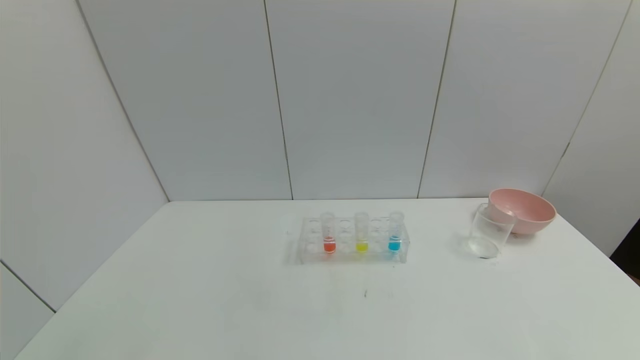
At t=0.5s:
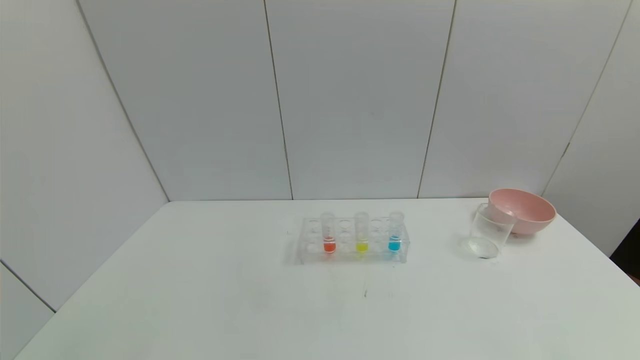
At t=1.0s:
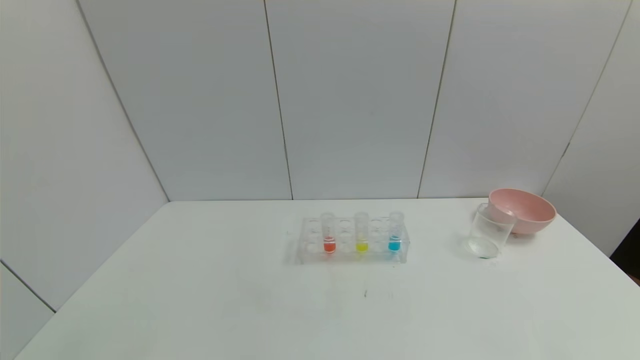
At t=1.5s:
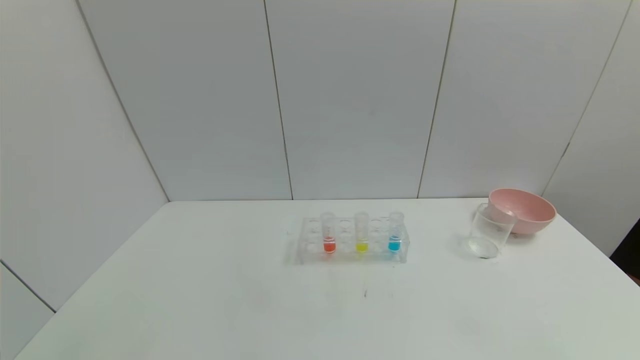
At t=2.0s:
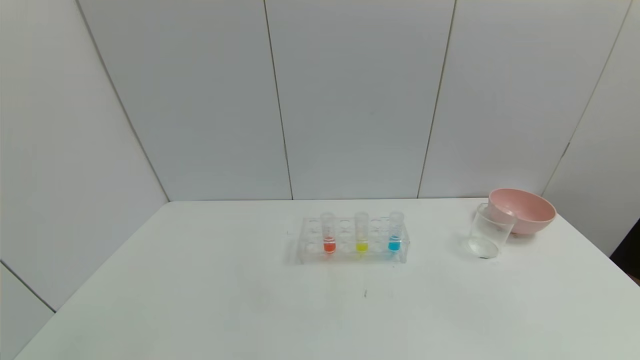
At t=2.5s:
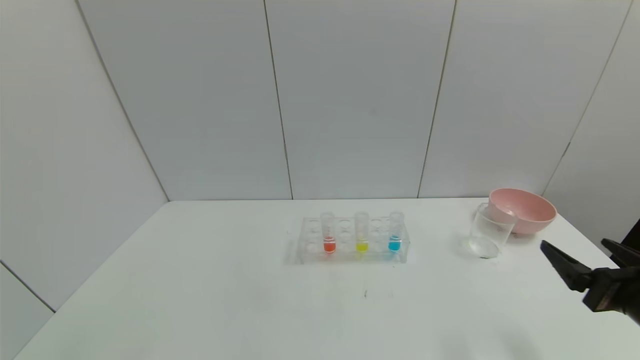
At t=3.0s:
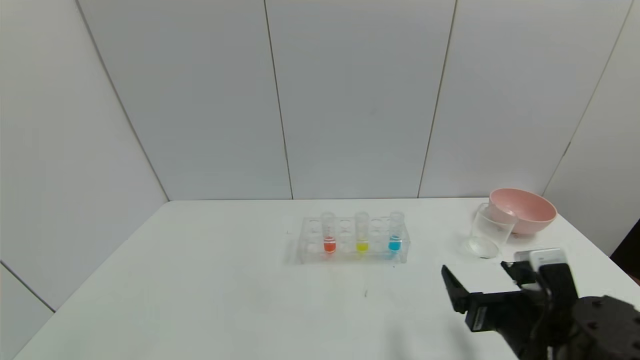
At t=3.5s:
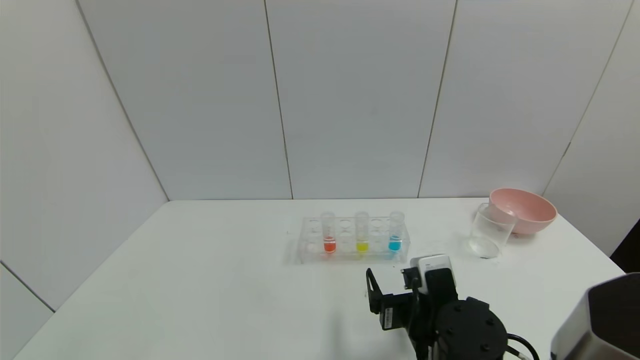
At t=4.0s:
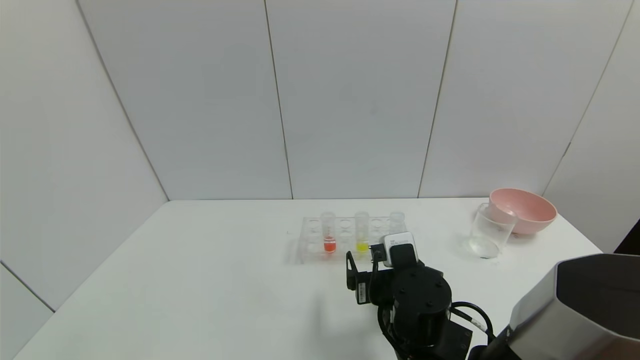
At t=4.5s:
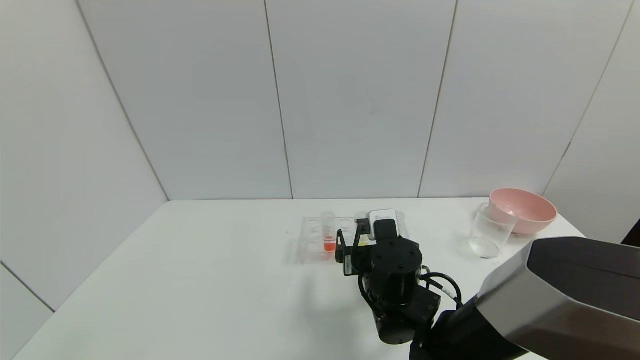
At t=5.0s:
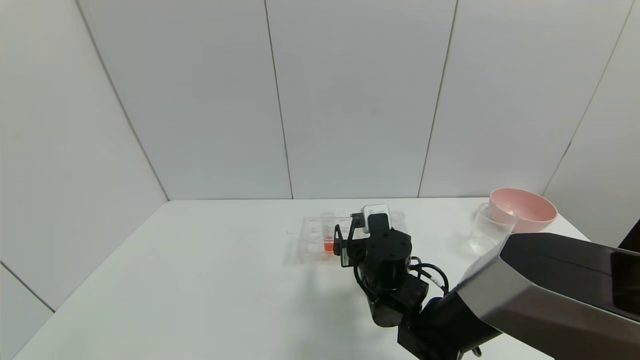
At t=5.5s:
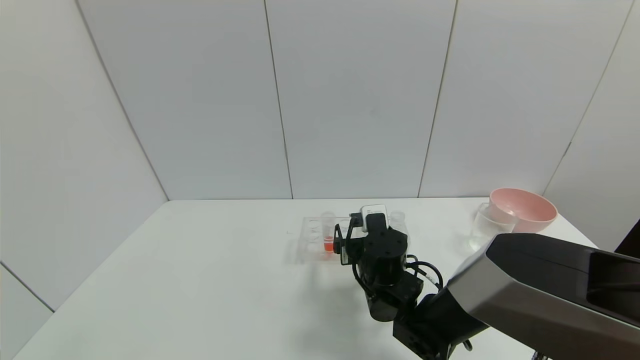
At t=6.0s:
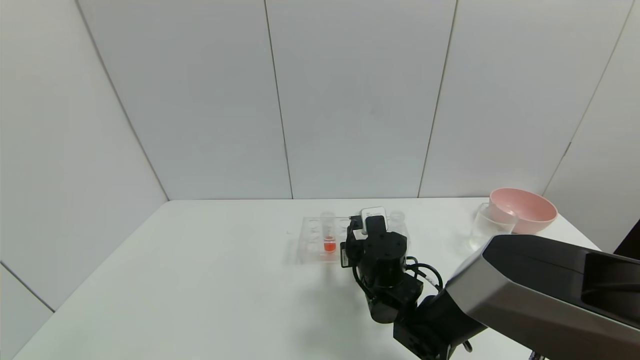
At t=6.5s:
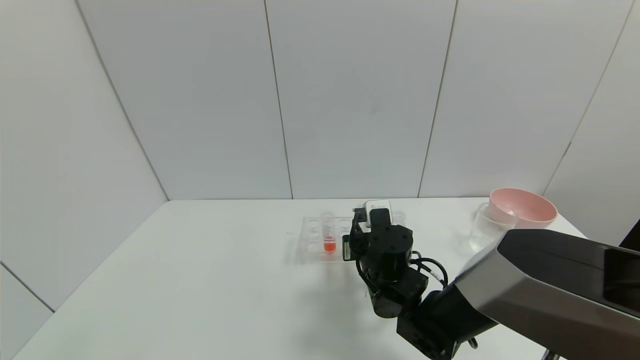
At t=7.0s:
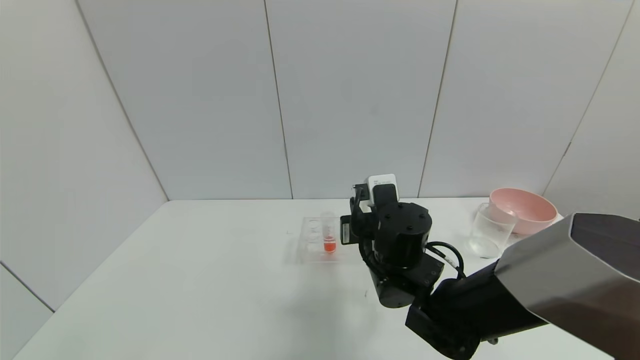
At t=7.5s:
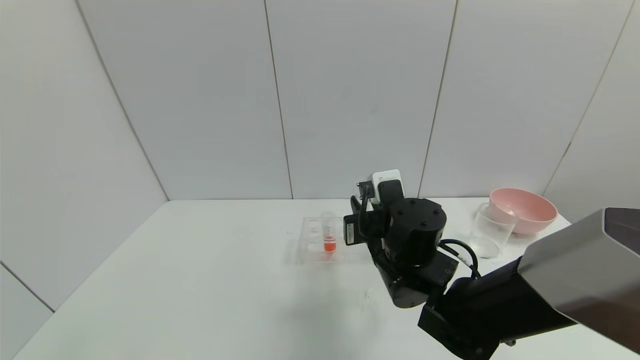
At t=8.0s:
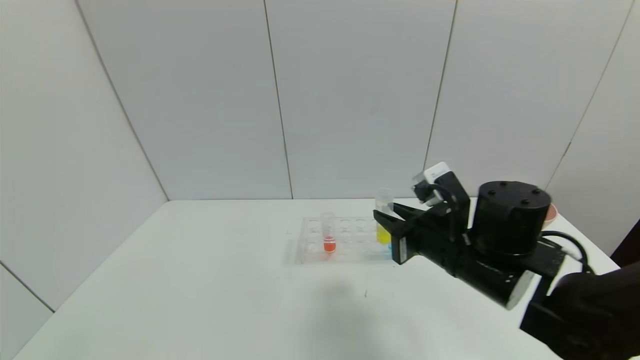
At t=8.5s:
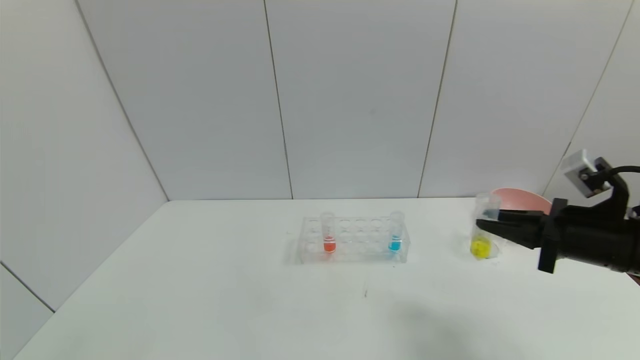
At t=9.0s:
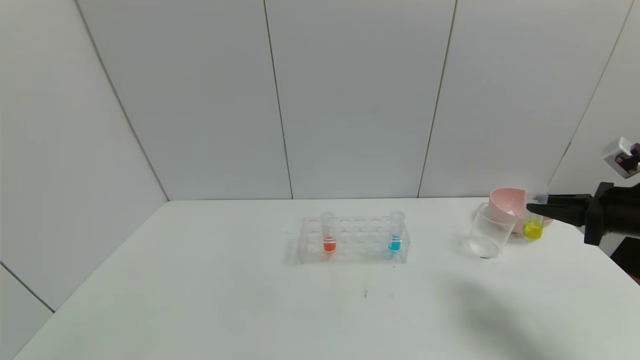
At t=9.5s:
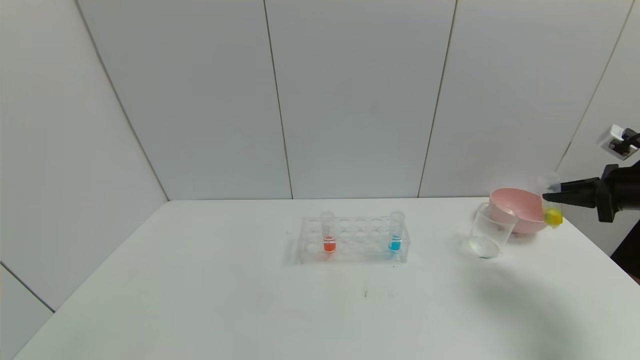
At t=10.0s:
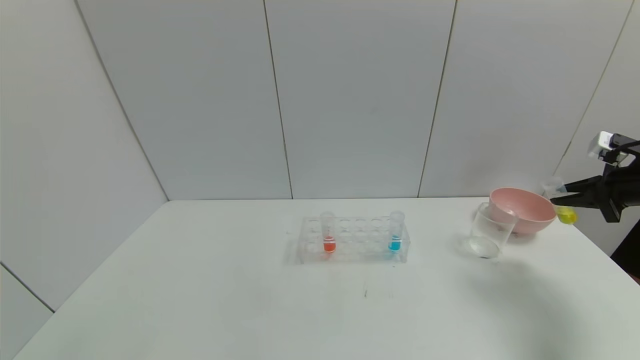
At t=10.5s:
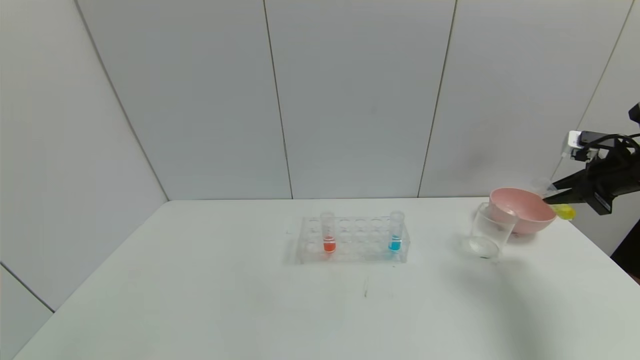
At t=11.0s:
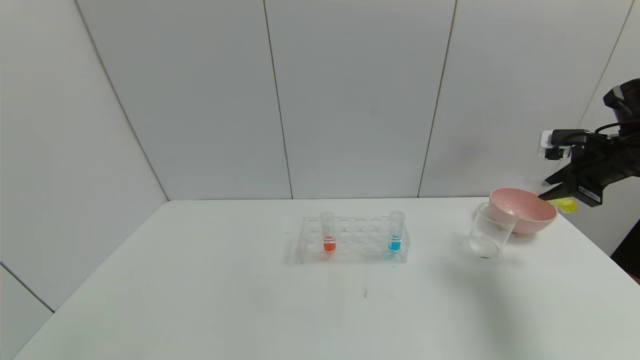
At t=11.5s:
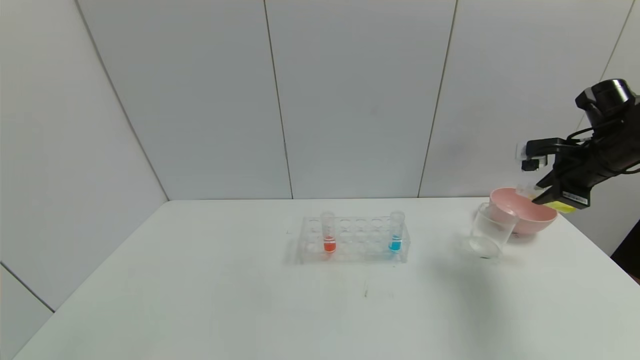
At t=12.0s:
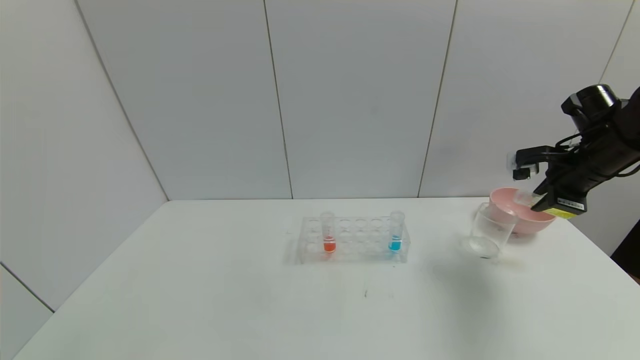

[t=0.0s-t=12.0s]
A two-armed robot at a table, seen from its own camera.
Task of the whole recording: pick up the test tube with yellow pigment and the test tube with blue pigment by grippers and pour them into the beaker.
Step, t=0.0s to t=6.0s: Grasp the red reagent with the right gripper.
t=2.0s to t=4.0s: The right gripper moves to the left and forward, about 35 cm.
t=4.0s to t=6.0s: The right gripper travels forward by some 10 cm, and closes.
t=6.0s to t=8.0s: The right gripper shifts about 15 cm upward, to the right and backward.
t=8.0s to t=10.0s: The right gripper travels to the right by approximately 30 cm.
t=10.0s to t=12.0s: The right gripper goes some 10 cm to the left.

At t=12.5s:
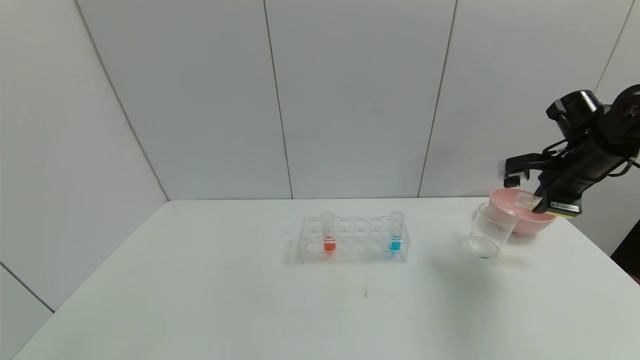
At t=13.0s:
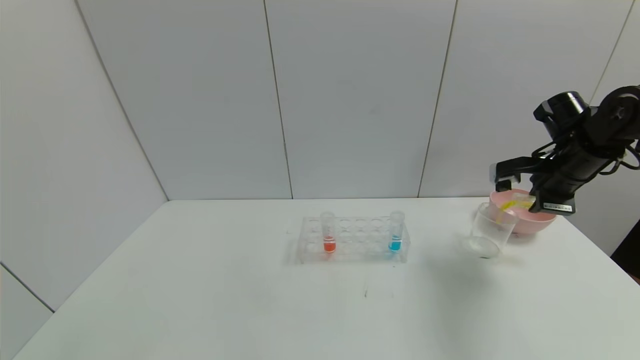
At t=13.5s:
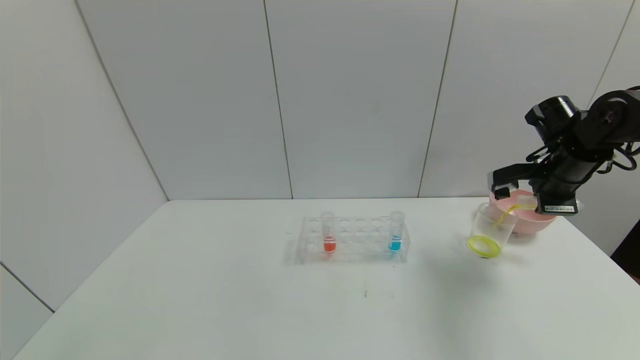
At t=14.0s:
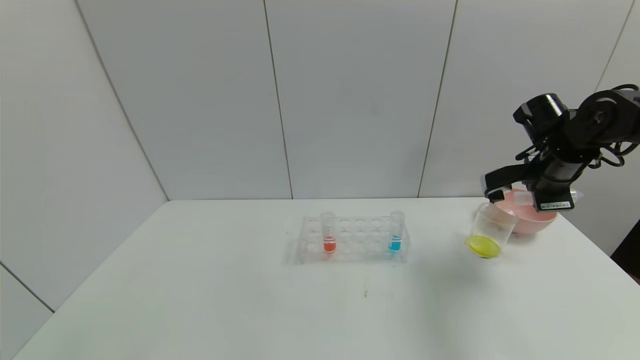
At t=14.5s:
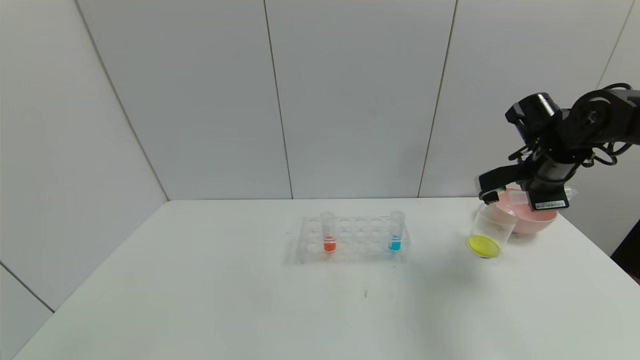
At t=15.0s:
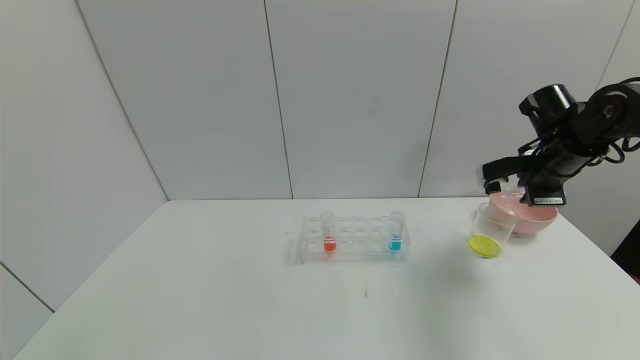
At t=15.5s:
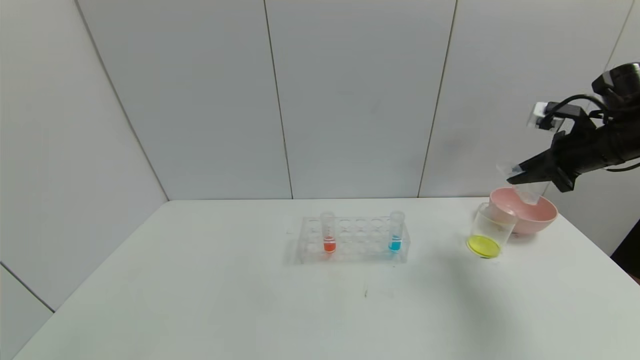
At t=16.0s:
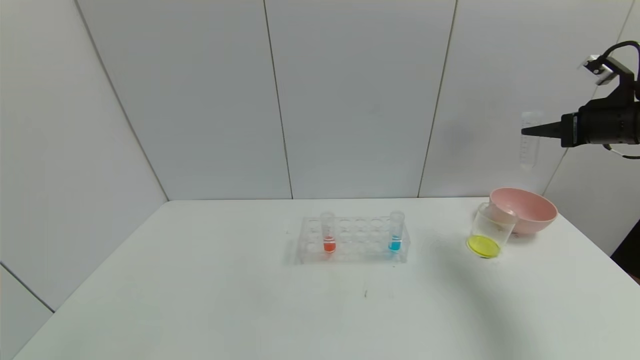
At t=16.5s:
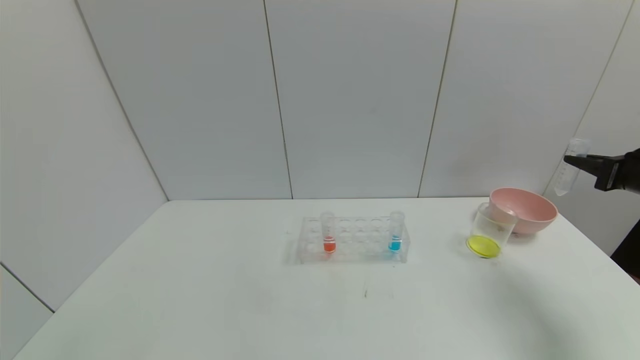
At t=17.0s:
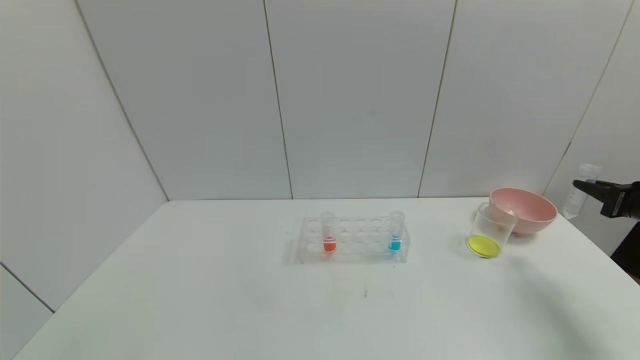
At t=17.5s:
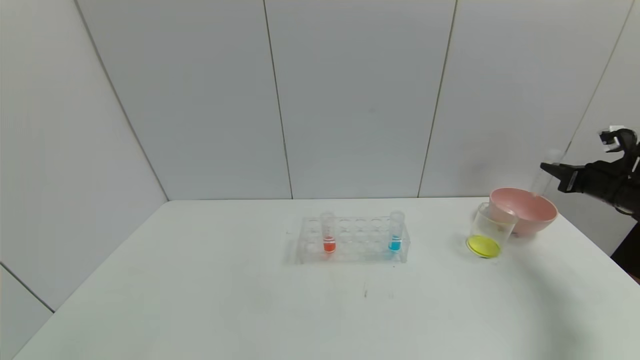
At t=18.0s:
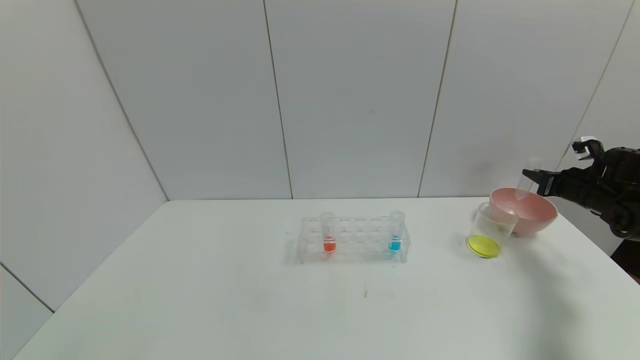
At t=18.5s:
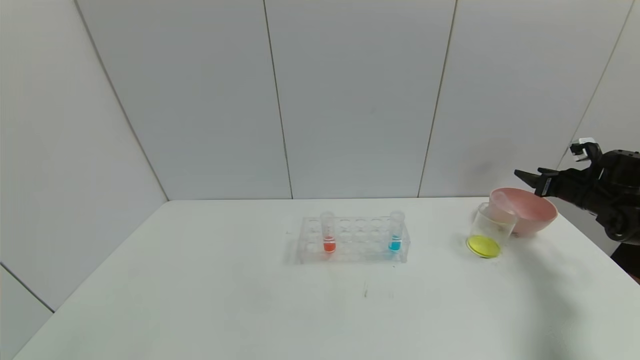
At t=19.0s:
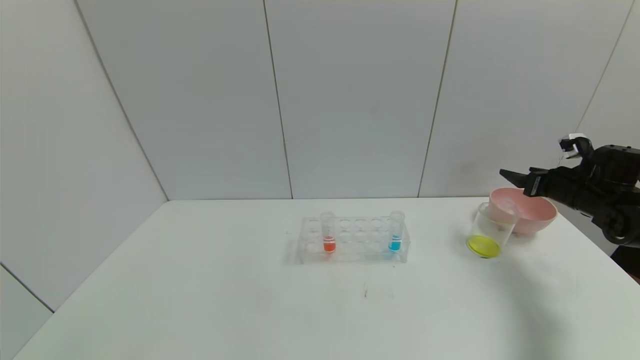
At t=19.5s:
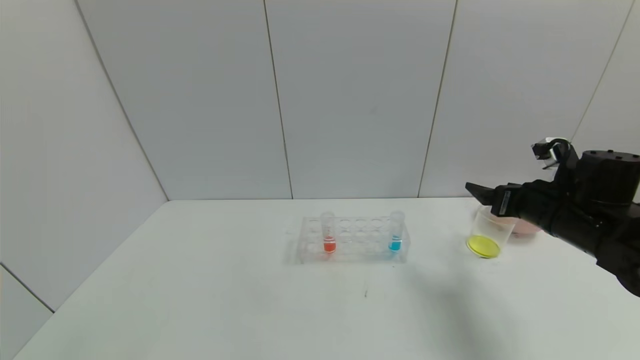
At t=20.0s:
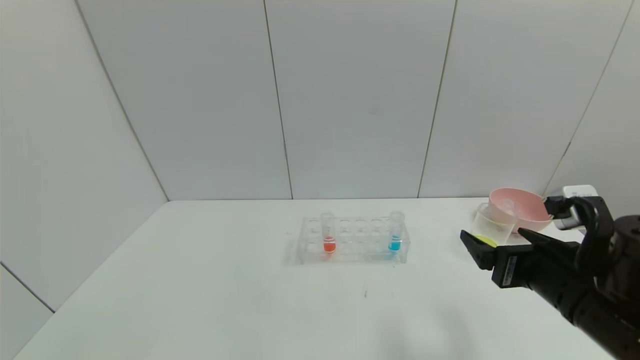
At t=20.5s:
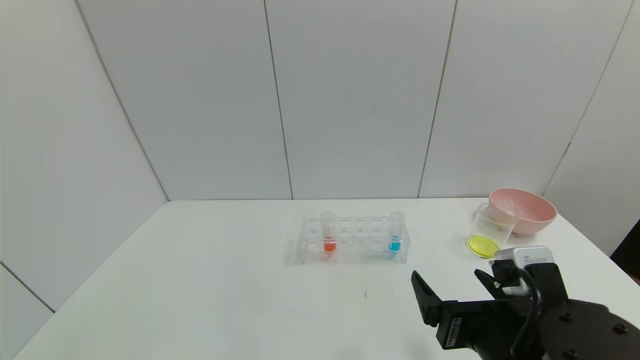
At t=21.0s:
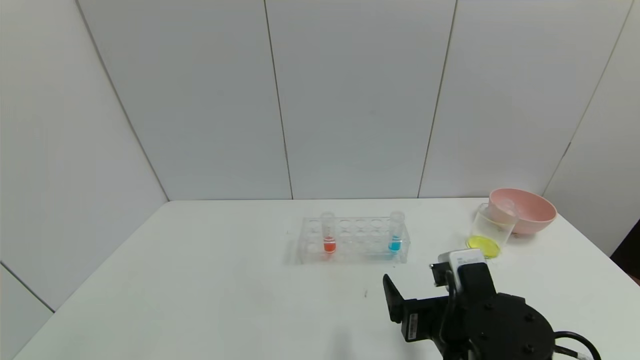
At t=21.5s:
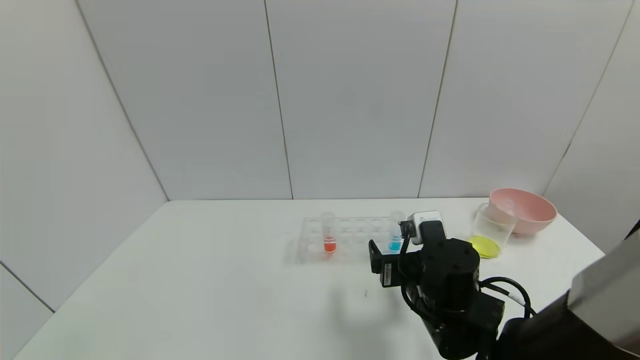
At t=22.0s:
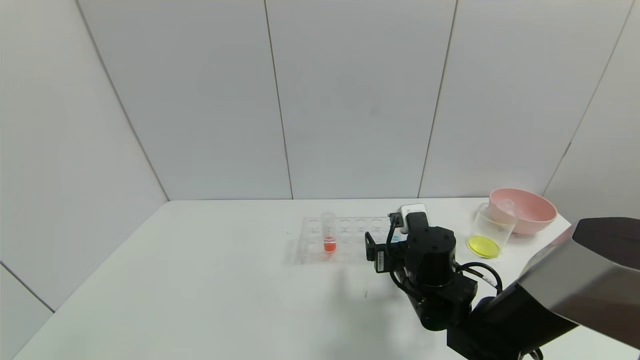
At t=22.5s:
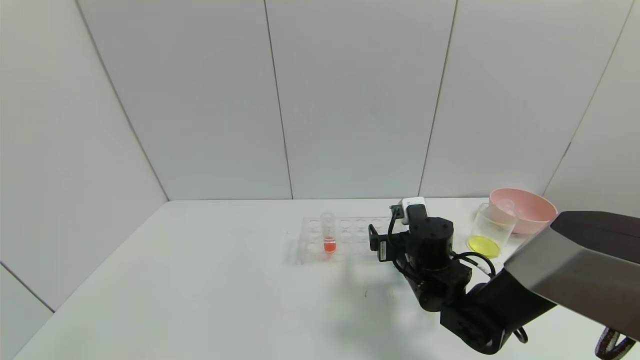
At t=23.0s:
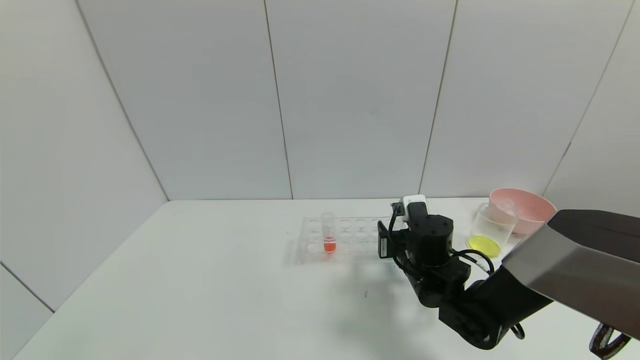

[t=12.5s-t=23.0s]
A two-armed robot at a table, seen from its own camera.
Task of the whole recording: pick up the test tube with yellow pigment and the test tube with blue pigment by grippers and pour them into the beaker.
Step, t=12.5s to t=14.5s: Pour the red reagent into the graduated cylinder with the right gripper.
Step, t=15.0s to t=20.0s: Place the test tube into the bowl with the right gripper.
t=14.5s to t=16.5s: The right gripper goes about 15 cm to the right and backward.
t=16.5s to t=19.0s: The right gripper moves forward and downward, approximately 10 cm, and opens up.
t=19.0s to t=21.0s: The right gripper is displaced to the left and backward by about 40 cm.
t=21.0s to t=23.0s: The right gripper travels forward by roughly 15 cm, and closes.
